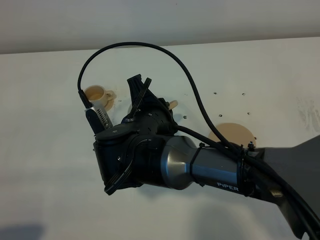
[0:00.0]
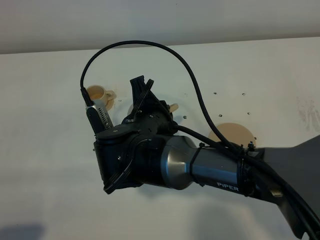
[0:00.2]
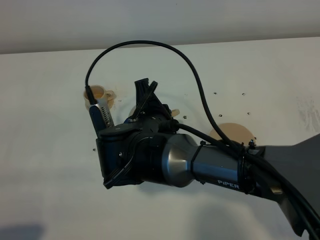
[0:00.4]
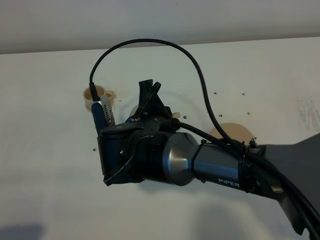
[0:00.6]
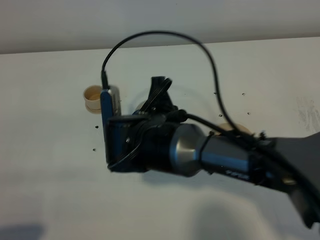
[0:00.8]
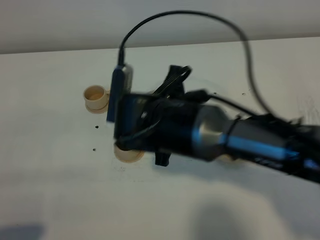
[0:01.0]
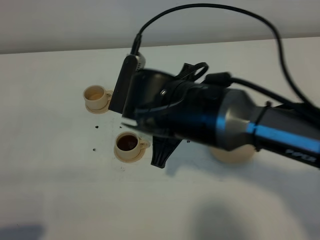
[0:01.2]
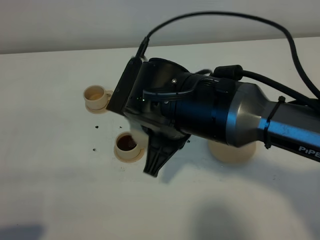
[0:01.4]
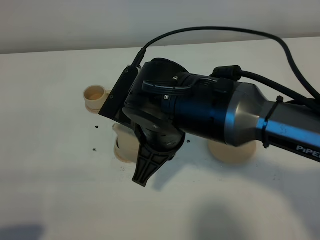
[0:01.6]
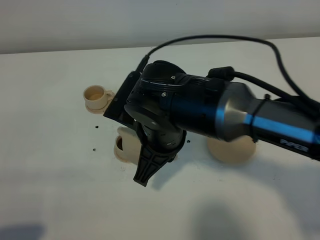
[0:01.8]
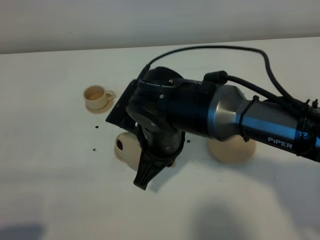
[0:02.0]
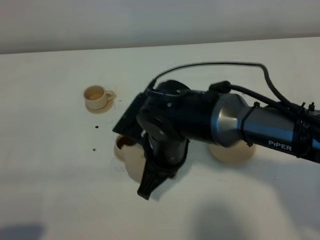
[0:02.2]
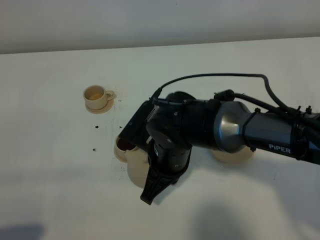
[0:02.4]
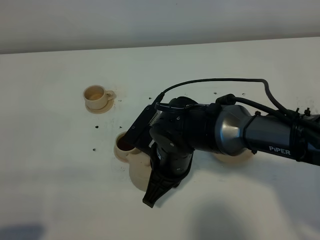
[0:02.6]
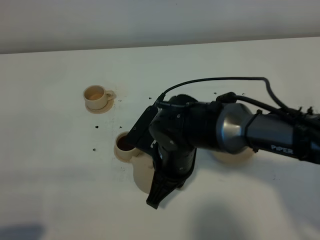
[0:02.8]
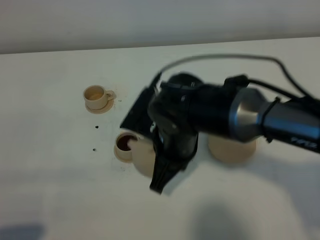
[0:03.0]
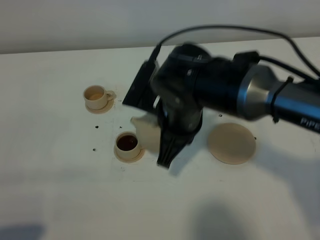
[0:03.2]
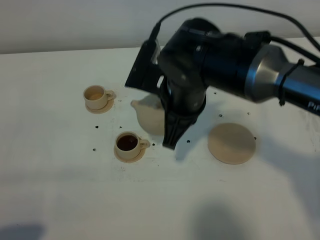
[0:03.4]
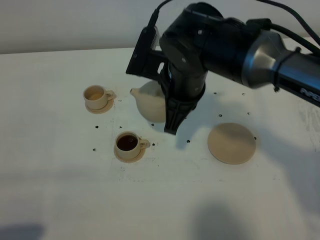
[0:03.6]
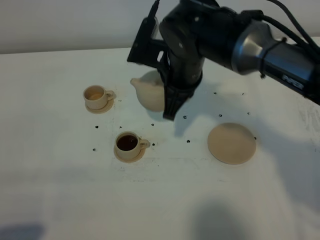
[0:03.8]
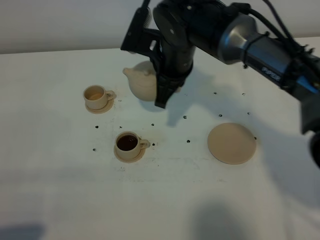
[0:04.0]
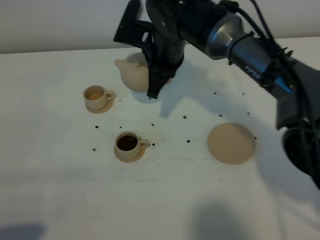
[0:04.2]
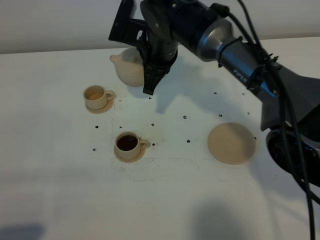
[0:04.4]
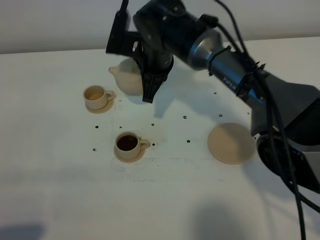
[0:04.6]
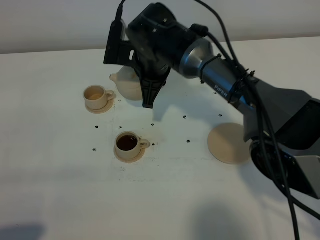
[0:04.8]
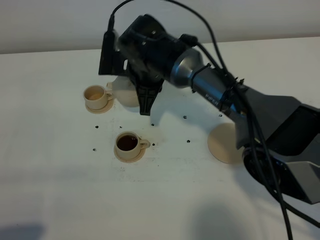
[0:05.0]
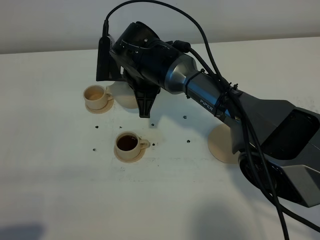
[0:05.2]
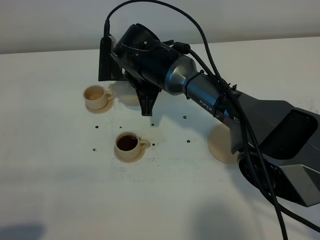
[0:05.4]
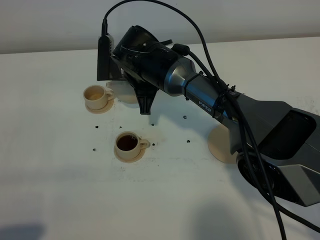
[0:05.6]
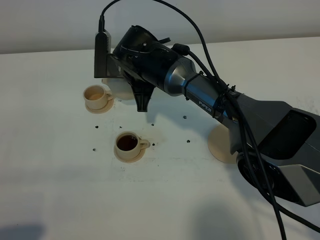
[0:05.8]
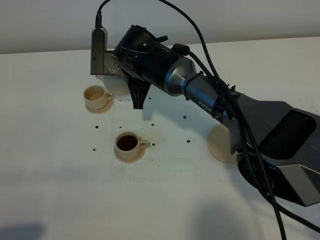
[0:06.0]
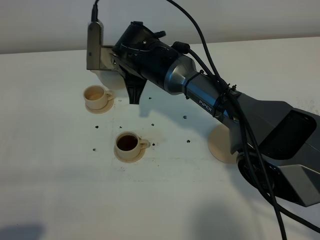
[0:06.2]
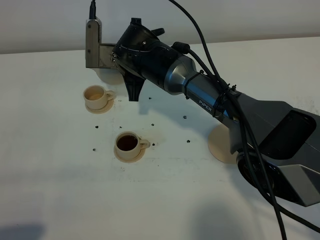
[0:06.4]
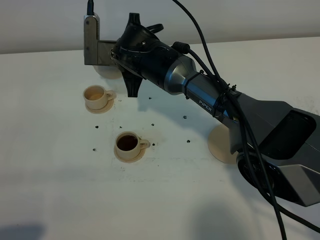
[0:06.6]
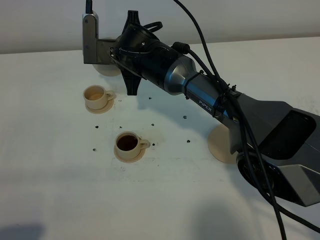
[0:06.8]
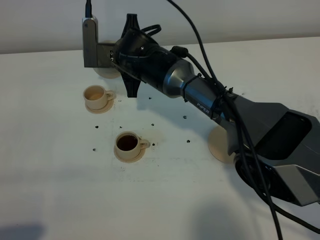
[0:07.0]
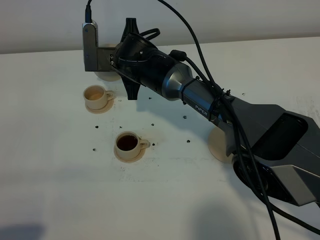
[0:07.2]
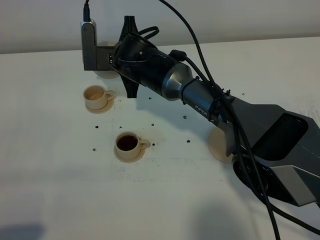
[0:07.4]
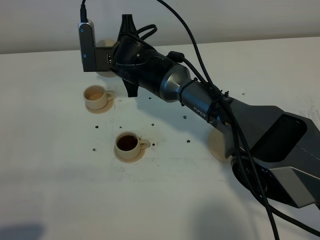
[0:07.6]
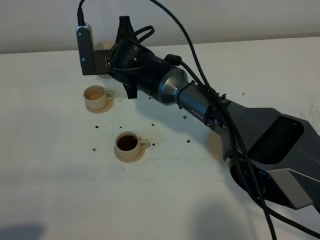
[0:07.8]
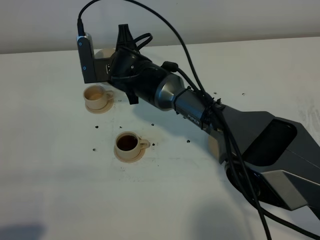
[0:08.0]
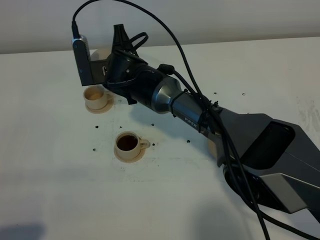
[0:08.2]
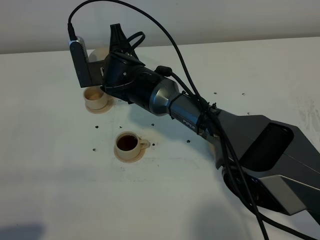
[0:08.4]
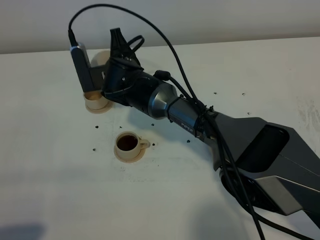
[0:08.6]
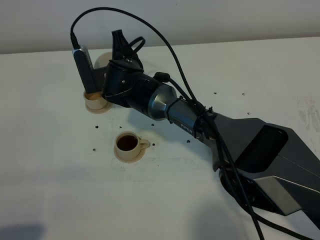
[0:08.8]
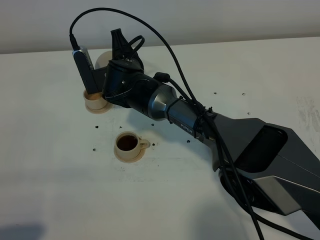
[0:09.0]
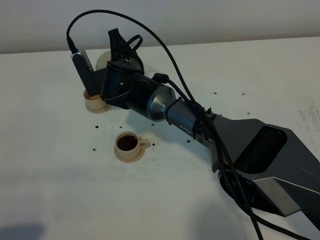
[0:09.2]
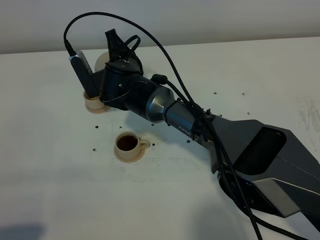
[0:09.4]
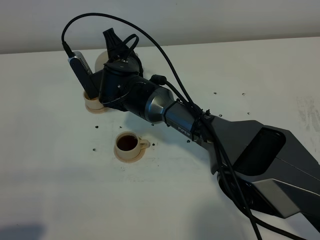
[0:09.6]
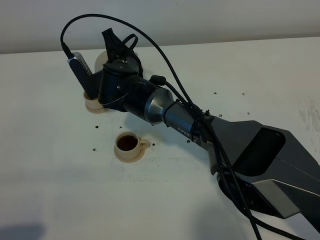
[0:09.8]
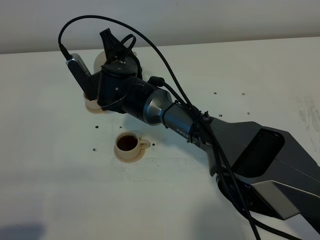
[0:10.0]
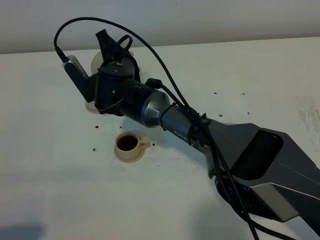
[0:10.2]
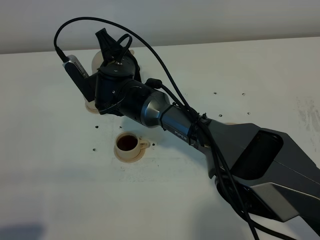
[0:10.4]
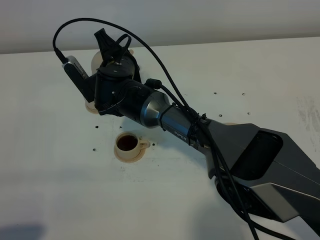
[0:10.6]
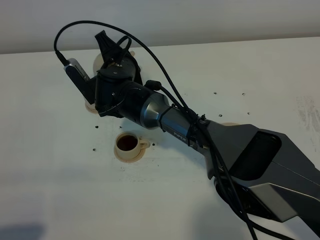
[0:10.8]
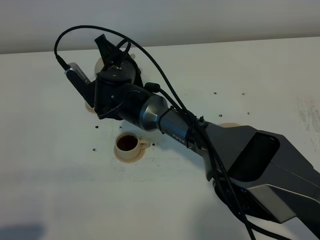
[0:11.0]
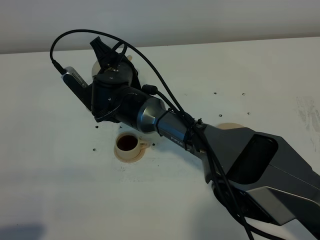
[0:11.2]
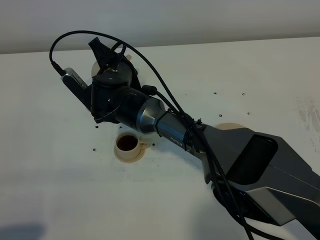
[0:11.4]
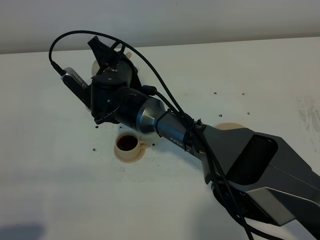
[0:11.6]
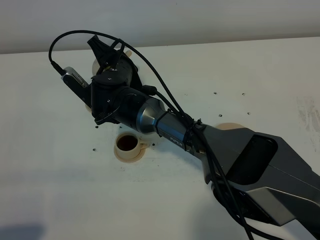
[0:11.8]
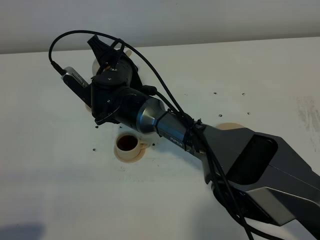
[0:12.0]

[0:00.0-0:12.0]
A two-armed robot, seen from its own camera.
Task of the whole recording: grasp the brown teapot and pour the tea into the two brown teacups one by one, put the brown teapot back in its original place.
0:00.0 to 0:01.6: The right gripper shifts about 5 cm upward.
0:03.0 to 0:04.4: The right gripper shifts about 15 cm forward.
0:04.4 to 0:06.0: The right gripper changes place by roughly 5 cm.
0:06.0 to 0:07.6: The grippers make only small movements.
0:09.0 to 0:10.4: The grippers move only a little.
0:10.4 to 0:12.0: There are only small adjustments of the grippers.

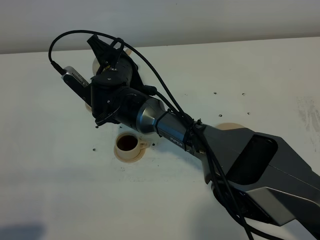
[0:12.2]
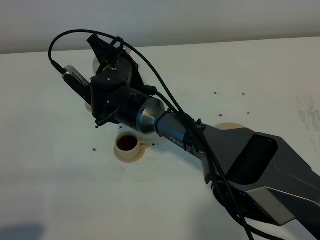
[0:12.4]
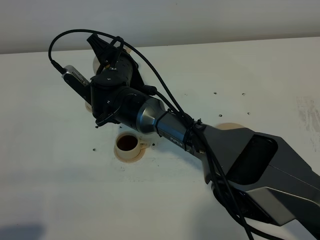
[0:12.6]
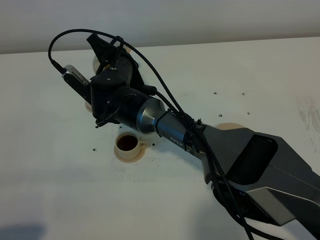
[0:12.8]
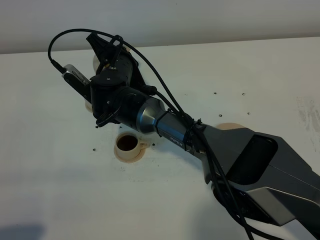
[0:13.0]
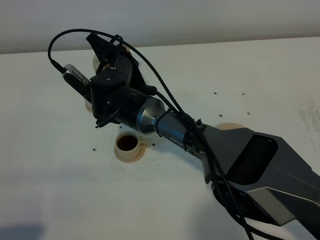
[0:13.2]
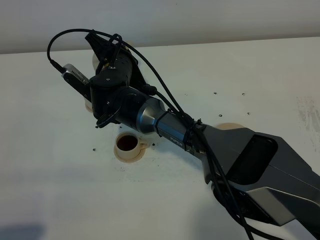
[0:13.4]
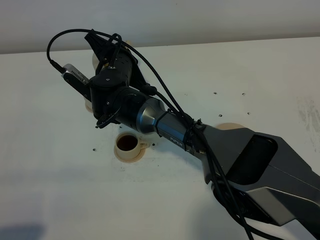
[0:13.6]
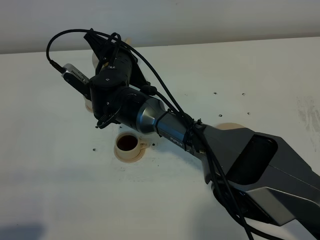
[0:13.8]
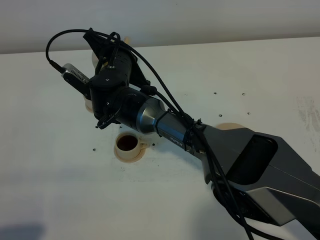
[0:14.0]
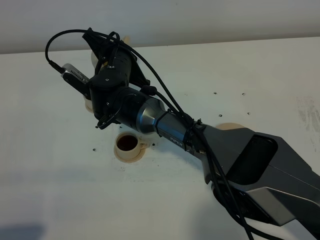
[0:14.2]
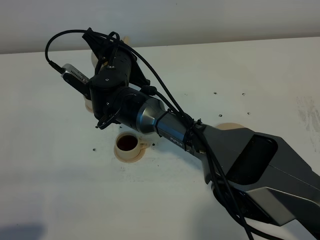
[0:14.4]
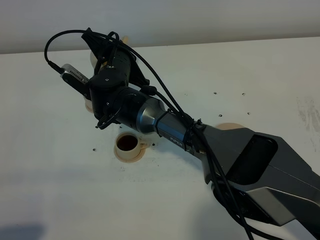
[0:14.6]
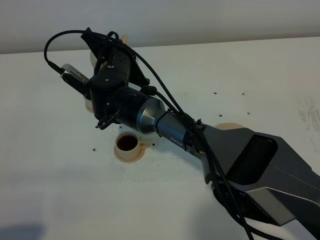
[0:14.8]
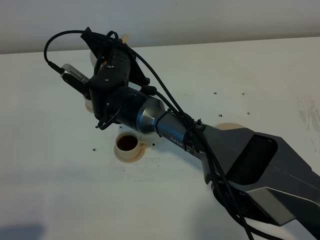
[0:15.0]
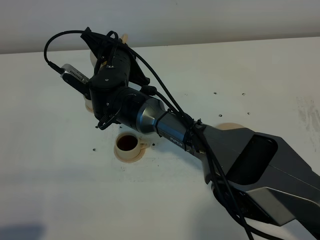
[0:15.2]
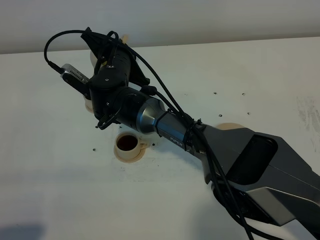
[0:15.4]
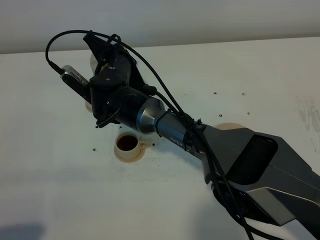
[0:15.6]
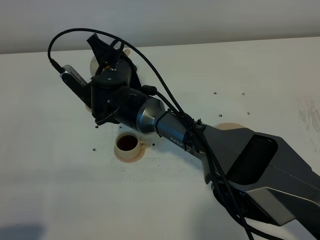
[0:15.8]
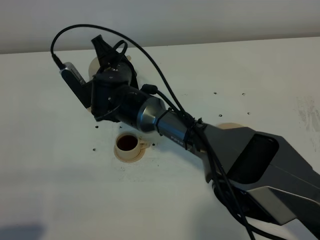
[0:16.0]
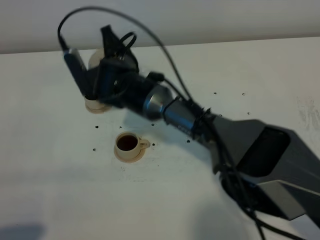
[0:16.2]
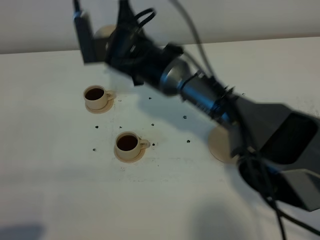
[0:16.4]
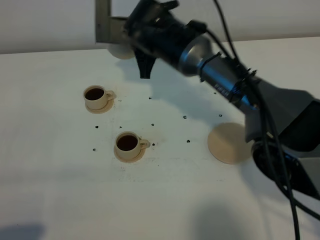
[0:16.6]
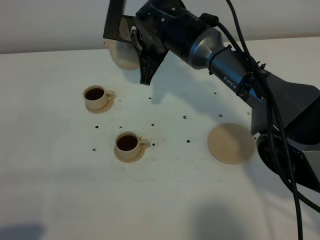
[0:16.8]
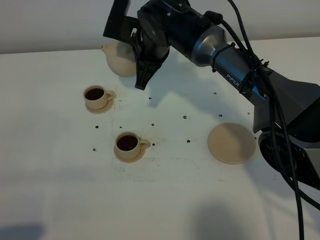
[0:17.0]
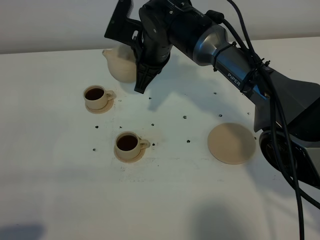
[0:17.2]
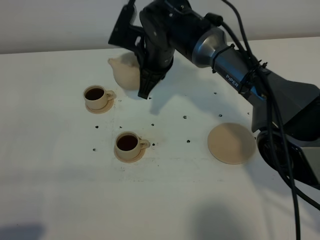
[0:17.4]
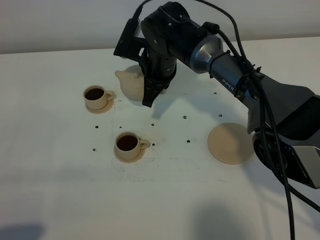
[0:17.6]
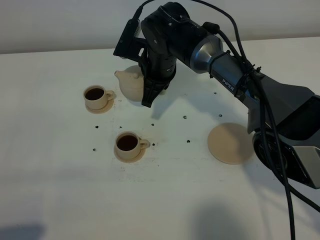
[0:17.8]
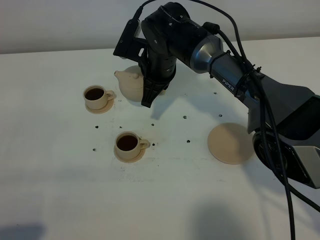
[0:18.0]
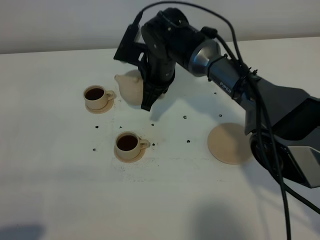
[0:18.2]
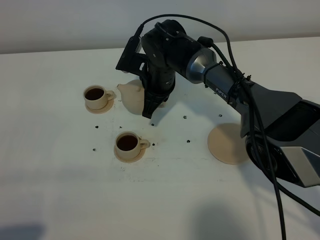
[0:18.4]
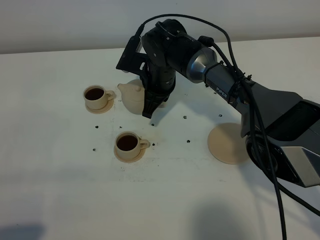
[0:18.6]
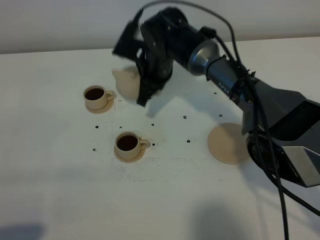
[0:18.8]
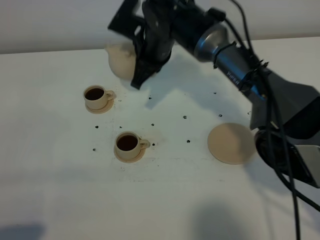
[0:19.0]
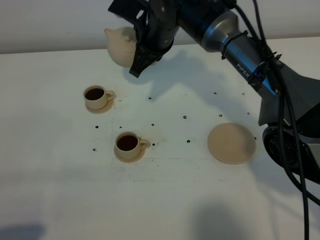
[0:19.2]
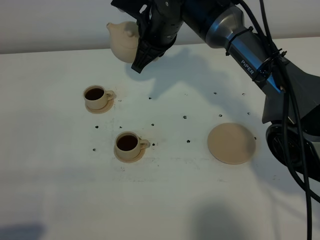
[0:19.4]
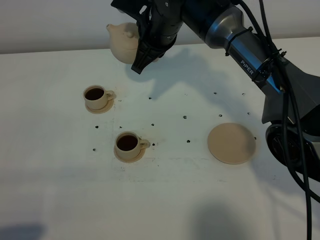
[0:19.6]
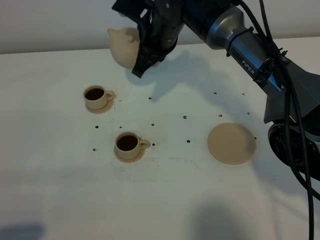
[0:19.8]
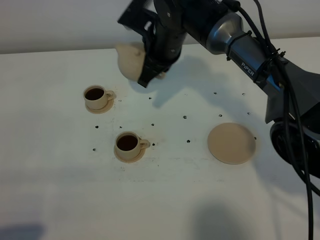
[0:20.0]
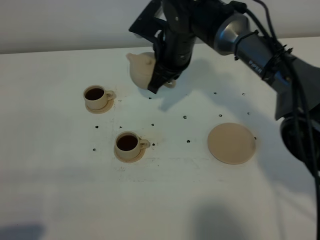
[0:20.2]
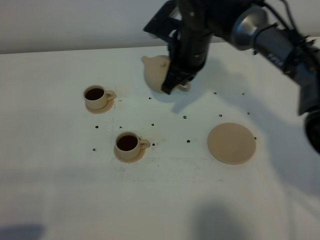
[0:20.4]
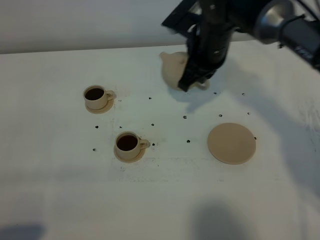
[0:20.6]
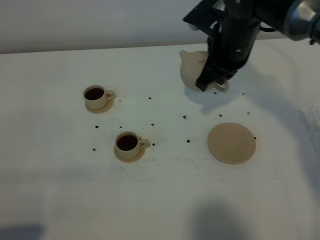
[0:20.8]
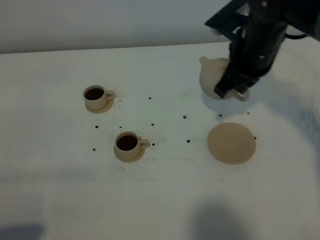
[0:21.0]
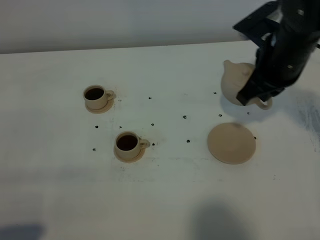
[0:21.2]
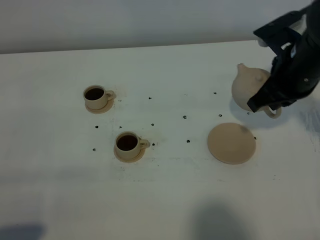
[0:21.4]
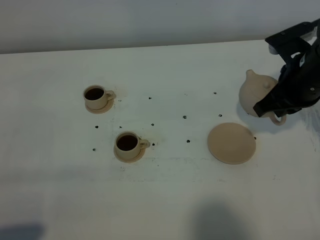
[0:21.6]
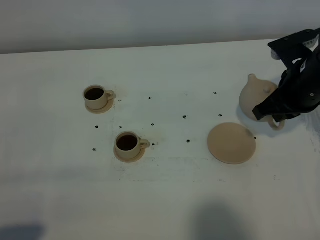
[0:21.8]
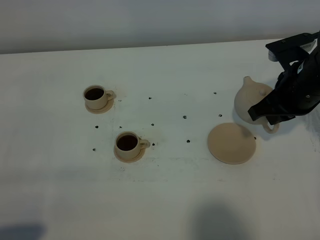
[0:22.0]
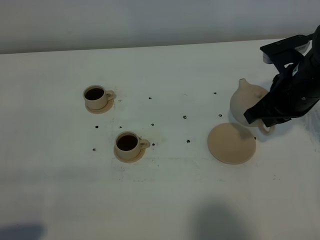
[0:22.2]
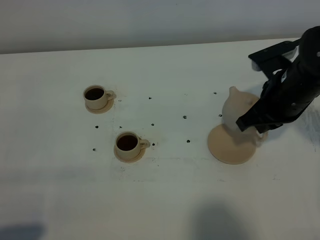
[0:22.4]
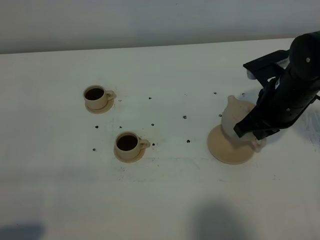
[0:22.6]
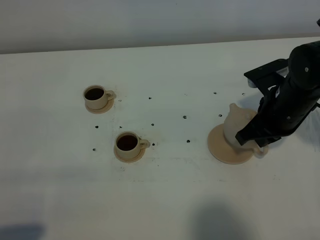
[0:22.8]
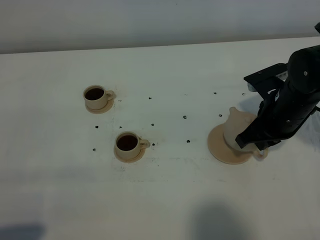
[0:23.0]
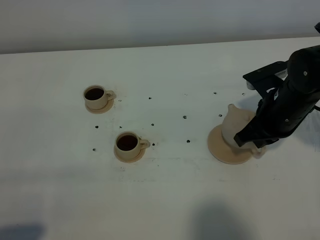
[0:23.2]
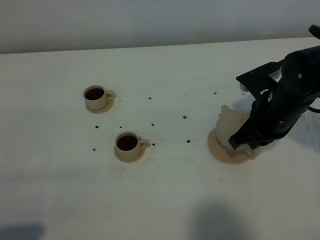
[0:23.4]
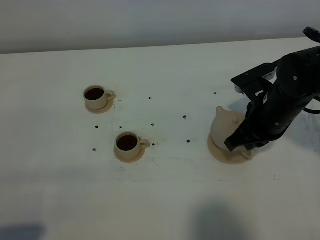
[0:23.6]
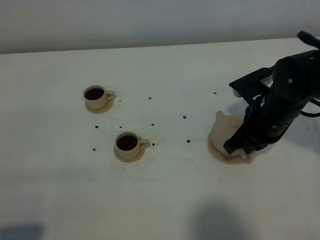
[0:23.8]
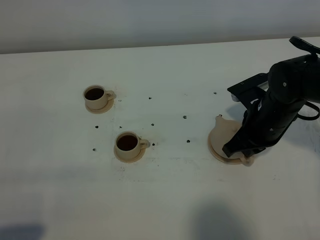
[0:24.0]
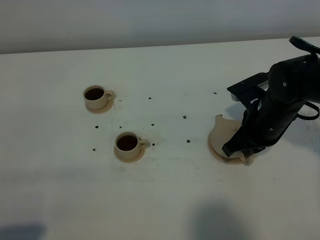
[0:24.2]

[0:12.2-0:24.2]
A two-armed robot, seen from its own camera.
Task of the whole recording: grasp the brown teapot and pour the tea into the two brown teacups one by one, put the brown teapot back in its original place.
Step, 0:12.2 to 0:16.0: Pour tea into the teacup with the right gripper.
0:12.2 to 0:13.8: The grippers make only small movements.
0:13.8 to 0:15.2: Neither gripper changes place.
0:15.2 to 0:16.6: The right gripper moves to the right and upward, some 10 cm.
0:16.6 to 0:18.2: The right gripper moves downward, about 5 cm.
0:18.2 to 0:19.8: The right gripper is displaced upward by about 10 cm.
0:19.8 to 0:21.2: The right gripper travels to the right and backward by roughly 20 cm.
0:21.2 to 0:22.6: The right gripper shifts approximately 5 cm downward.
0:22.6 to 0:24.2: The grippers move only a little.
